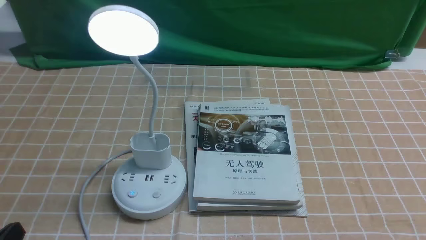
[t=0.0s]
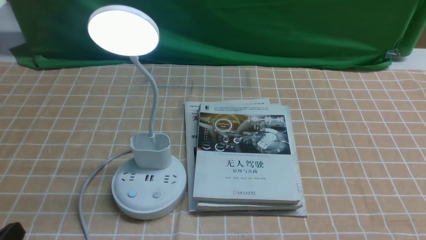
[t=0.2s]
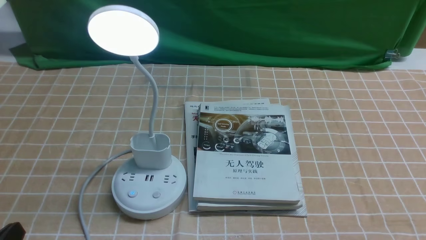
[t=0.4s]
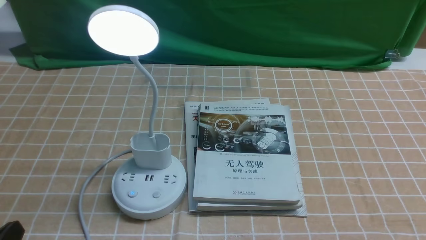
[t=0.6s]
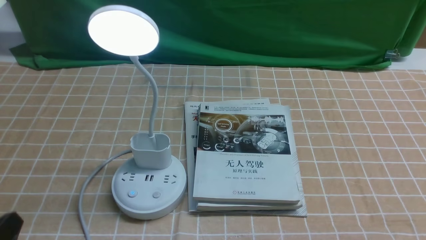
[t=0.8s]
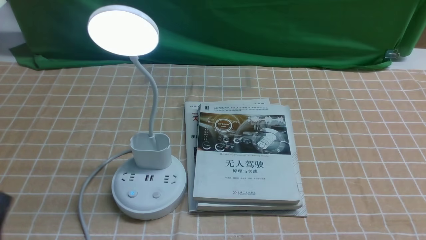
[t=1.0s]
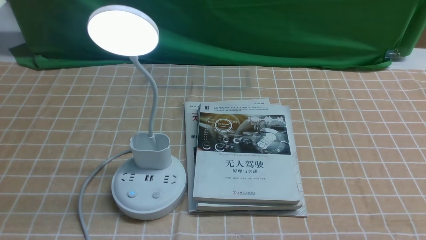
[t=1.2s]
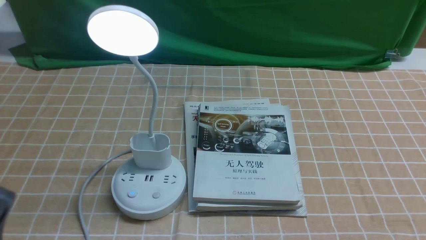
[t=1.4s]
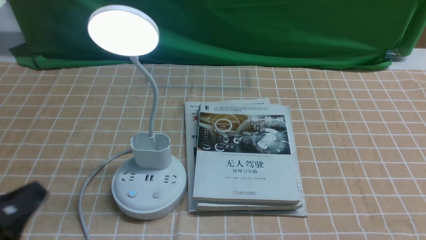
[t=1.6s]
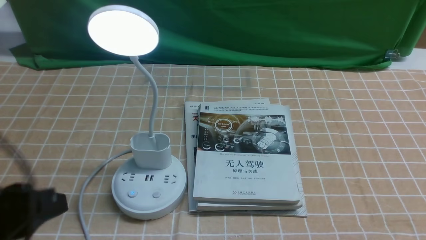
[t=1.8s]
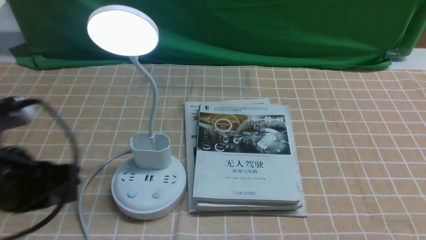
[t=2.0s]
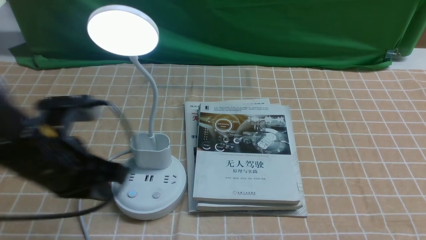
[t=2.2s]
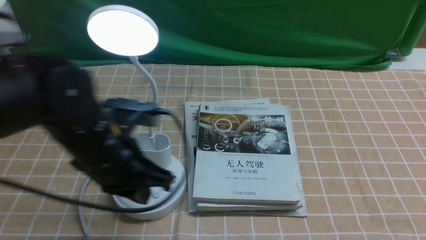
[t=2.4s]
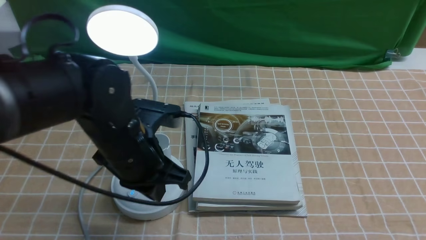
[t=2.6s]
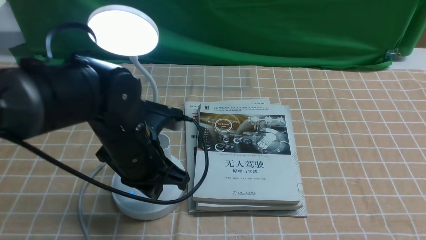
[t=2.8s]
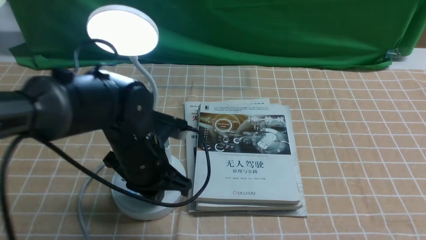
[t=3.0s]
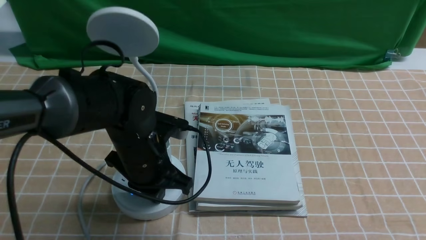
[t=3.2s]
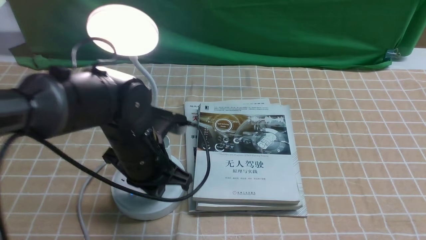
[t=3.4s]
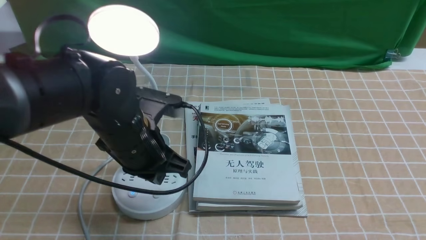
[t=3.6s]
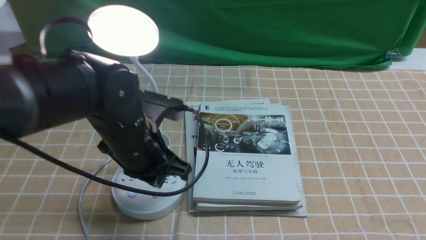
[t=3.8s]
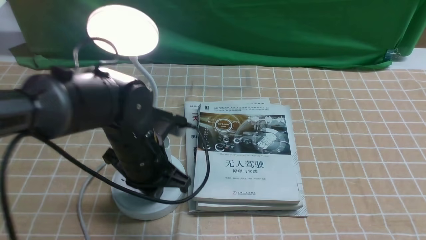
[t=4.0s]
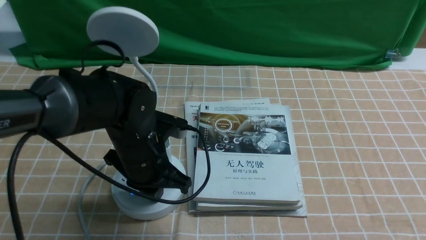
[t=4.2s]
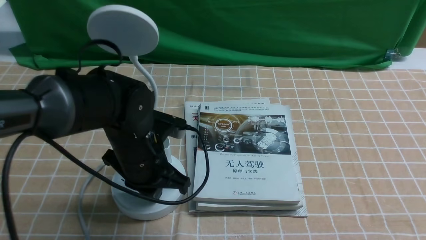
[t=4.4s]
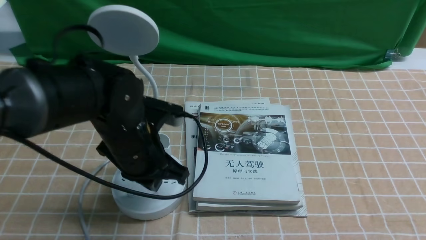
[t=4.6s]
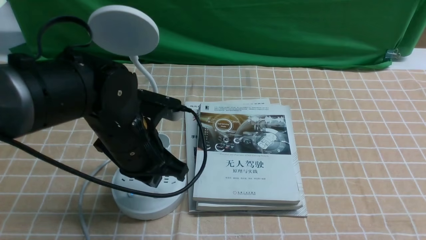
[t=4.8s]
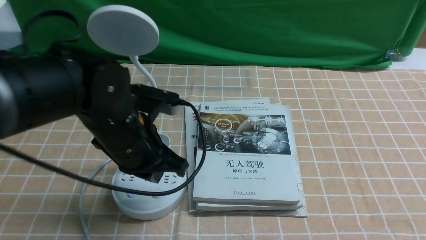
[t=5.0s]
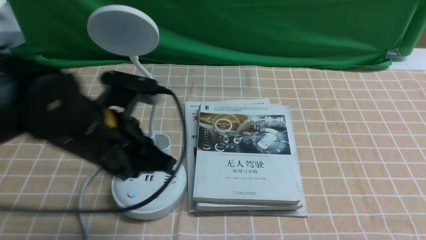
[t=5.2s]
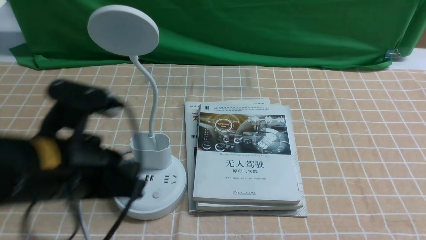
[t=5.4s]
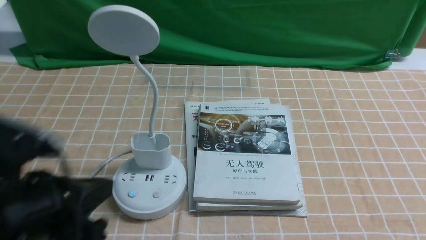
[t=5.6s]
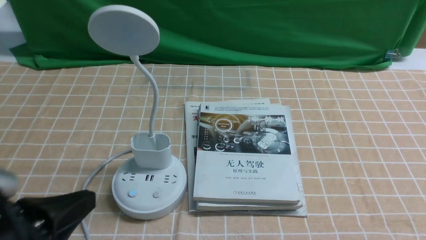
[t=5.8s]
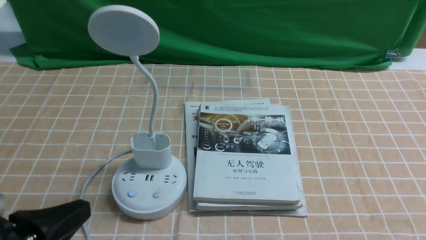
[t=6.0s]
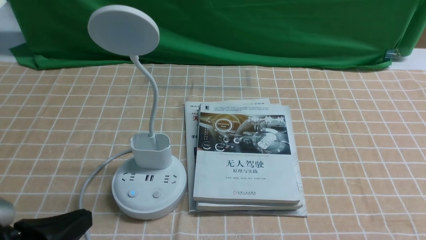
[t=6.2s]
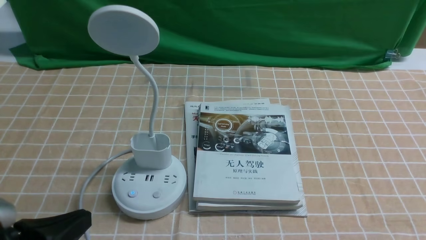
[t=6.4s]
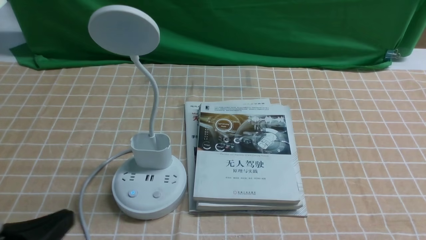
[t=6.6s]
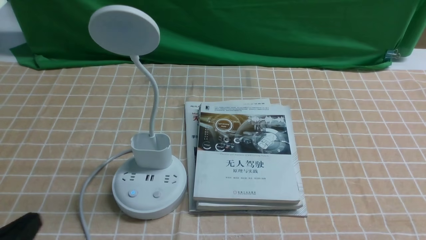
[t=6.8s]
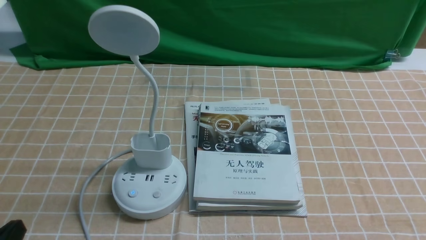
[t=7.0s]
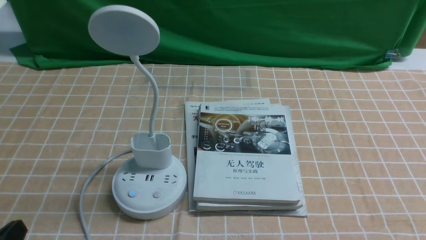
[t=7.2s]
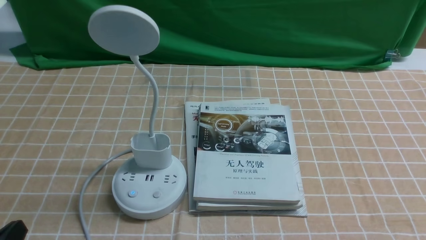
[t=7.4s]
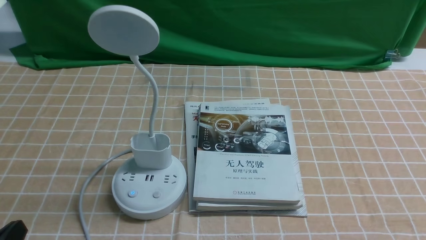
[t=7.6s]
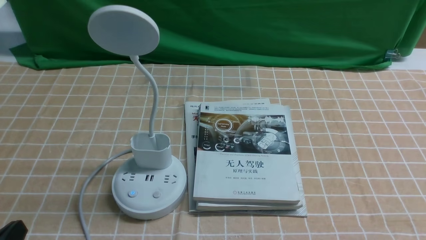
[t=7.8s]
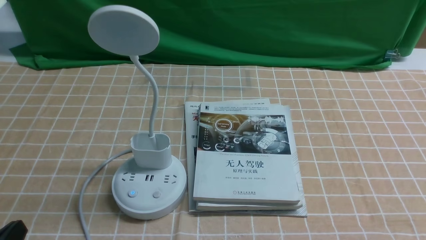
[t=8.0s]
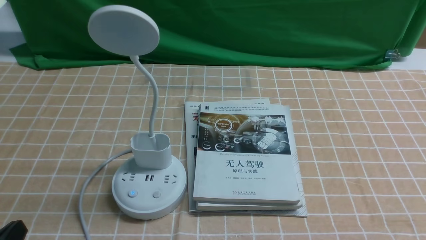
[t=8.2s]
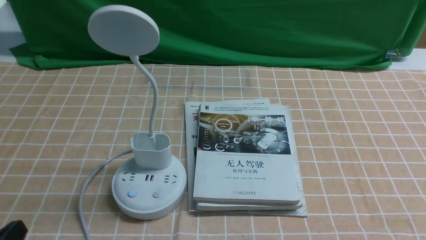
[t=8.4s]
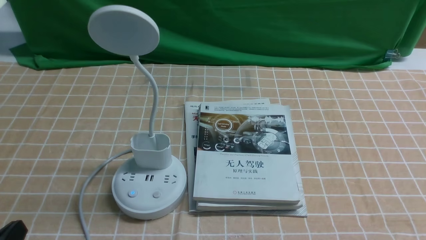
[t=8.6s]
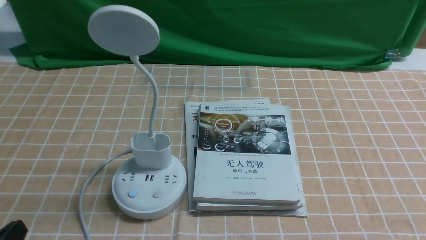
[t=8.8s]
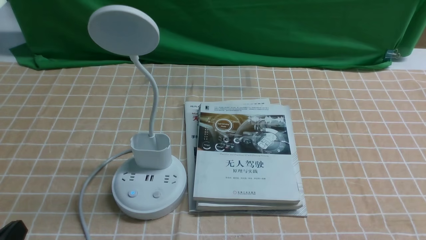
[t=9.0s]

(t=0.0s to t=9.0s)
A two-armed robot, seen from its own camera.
Task of the whole recording: turn off the desk lamp on the light coffee tablecloth by hand.
Step, t=0.0s - t=4.8s: use the left arm to press the button switch on the lamp holder.
t=0.0s - t=1.6s: The left gripper heads upward, covering roughly 10 cm, and opens up.
t=1.6s - t=3.0s: The left gripper is displaced forward and to the right by roughly 25 cm, and closes up.
t=3.0s - t=4.4s: The grippers stay close to where they were, moving slightly.
t=4.4s - t=6.0s: The left gripper heads backward and to the left, covering about 25 cm.
t=6.0s - t=7.6s: The left gripper is displaced downward by roughly 5 cm.
t=7.6s - t=9.0s: Neither gripper changes place.
